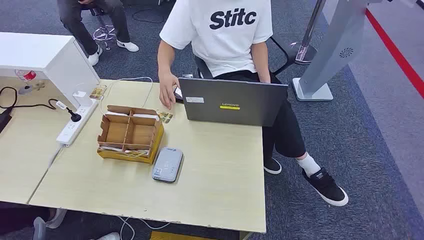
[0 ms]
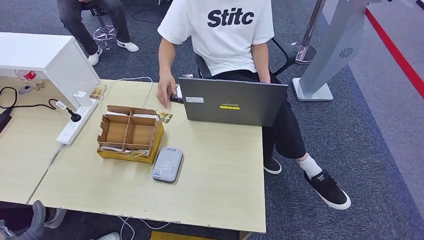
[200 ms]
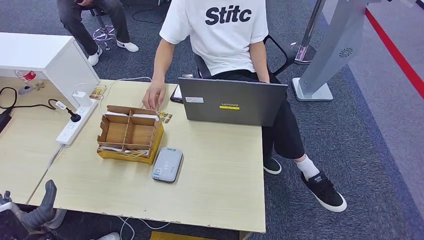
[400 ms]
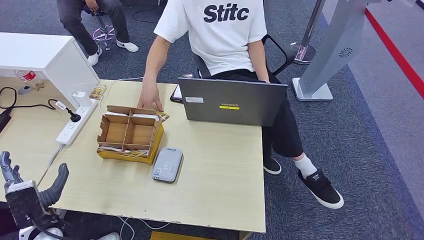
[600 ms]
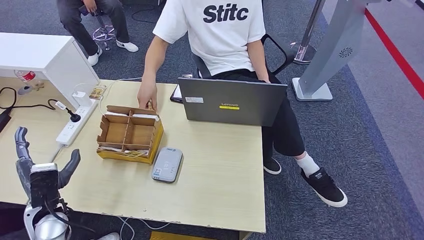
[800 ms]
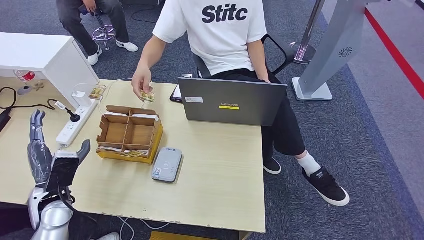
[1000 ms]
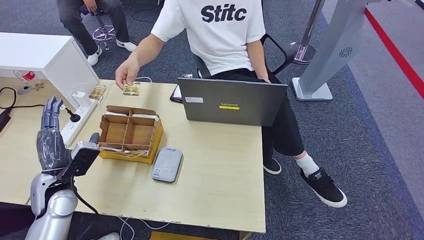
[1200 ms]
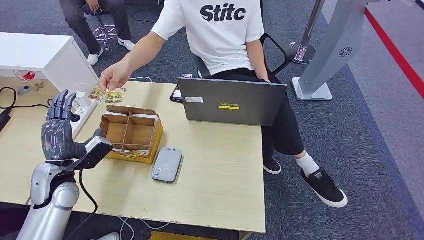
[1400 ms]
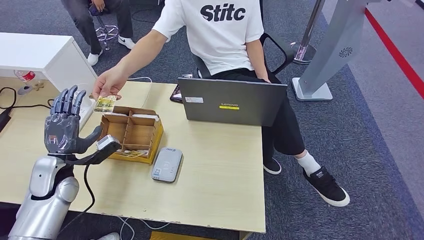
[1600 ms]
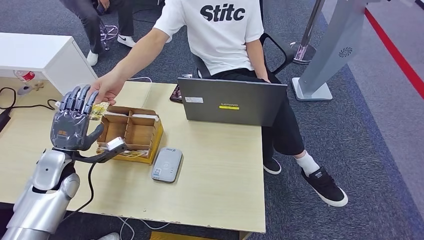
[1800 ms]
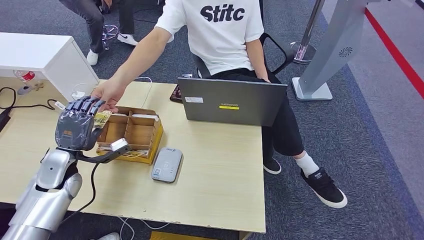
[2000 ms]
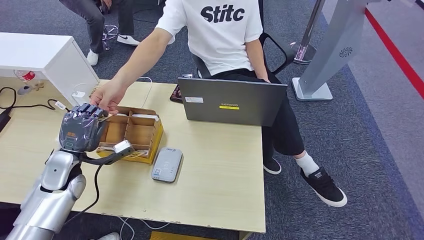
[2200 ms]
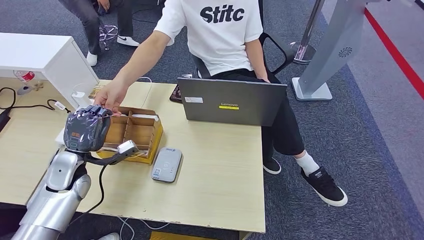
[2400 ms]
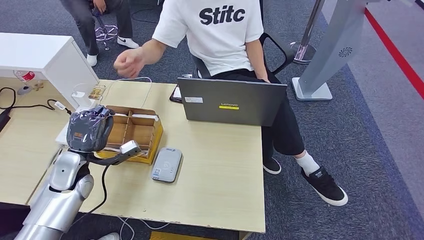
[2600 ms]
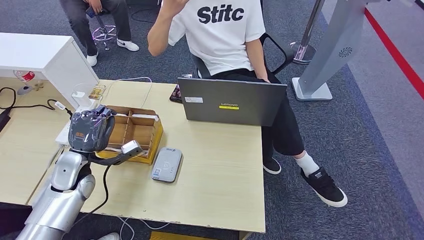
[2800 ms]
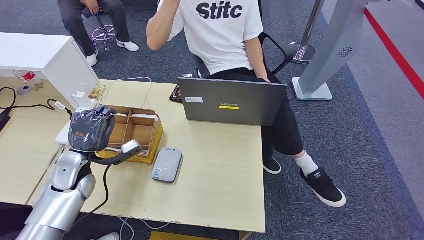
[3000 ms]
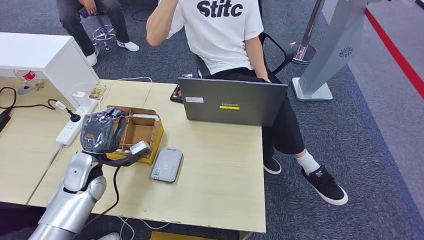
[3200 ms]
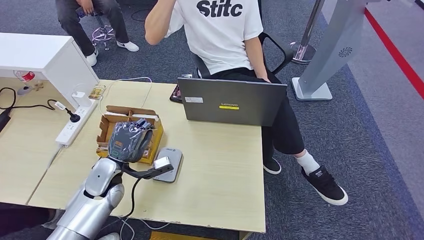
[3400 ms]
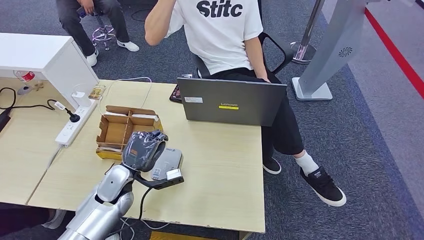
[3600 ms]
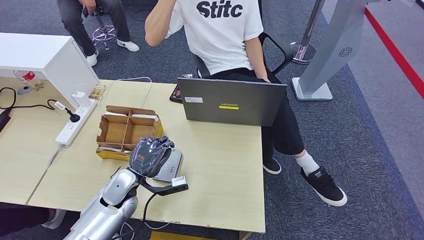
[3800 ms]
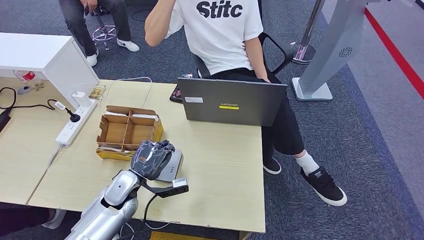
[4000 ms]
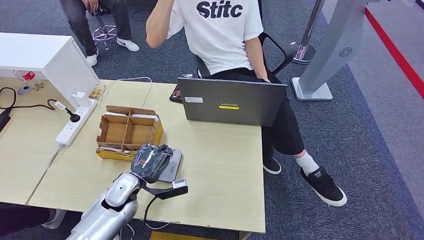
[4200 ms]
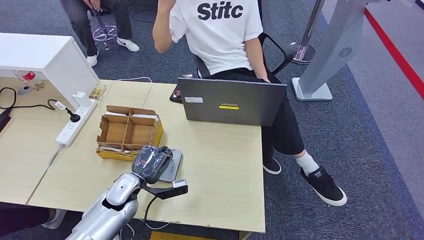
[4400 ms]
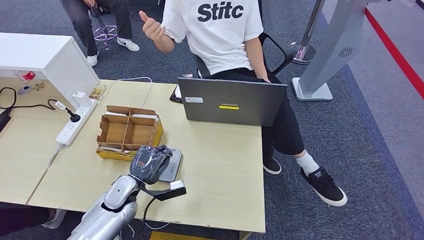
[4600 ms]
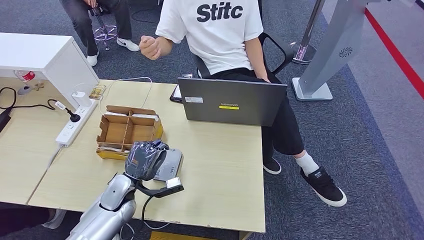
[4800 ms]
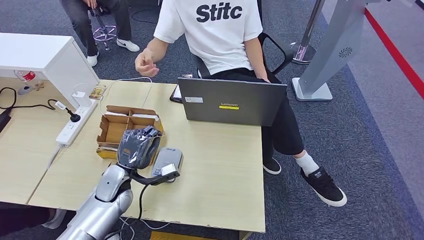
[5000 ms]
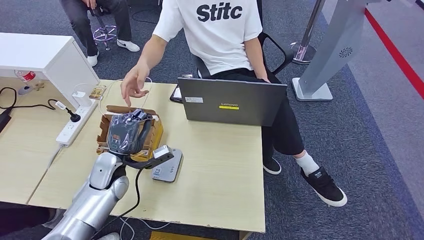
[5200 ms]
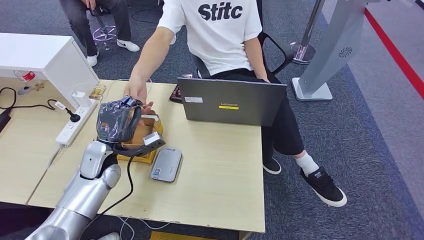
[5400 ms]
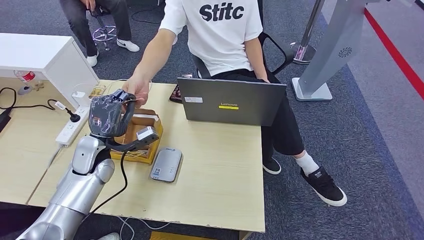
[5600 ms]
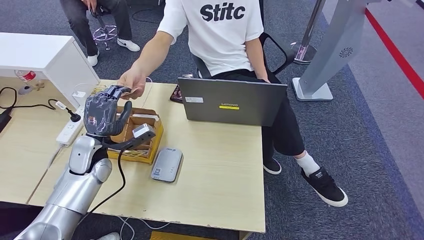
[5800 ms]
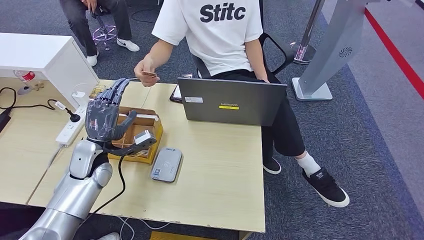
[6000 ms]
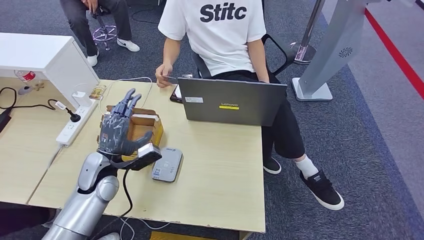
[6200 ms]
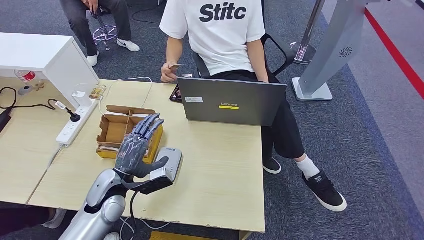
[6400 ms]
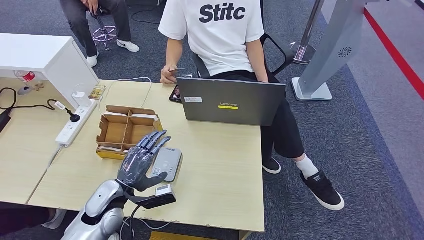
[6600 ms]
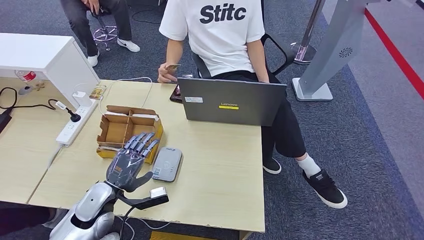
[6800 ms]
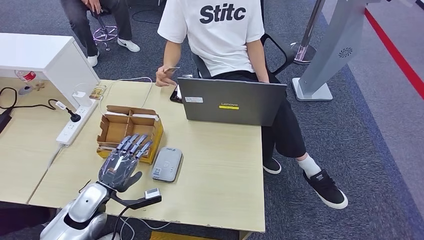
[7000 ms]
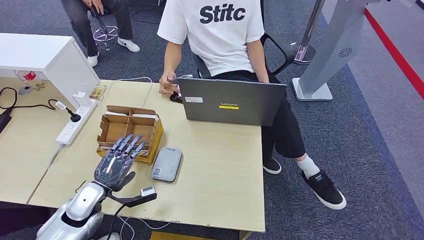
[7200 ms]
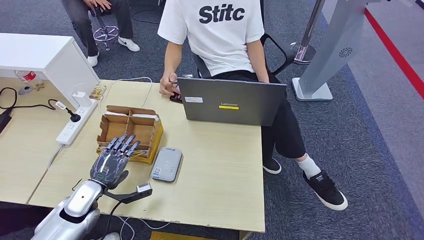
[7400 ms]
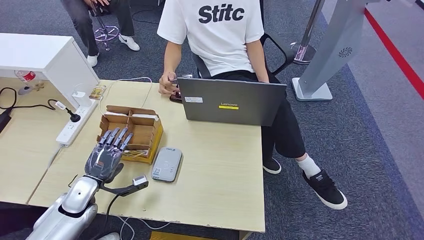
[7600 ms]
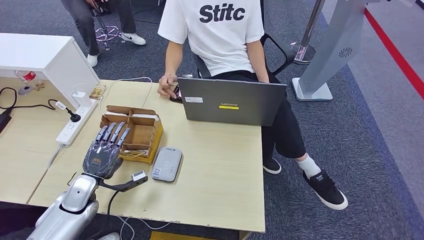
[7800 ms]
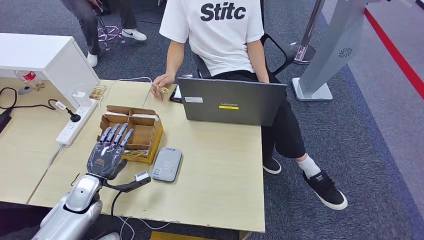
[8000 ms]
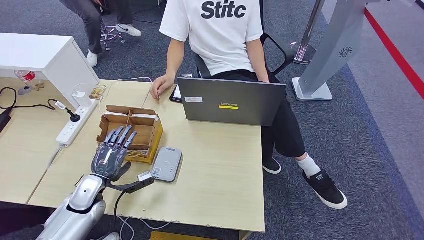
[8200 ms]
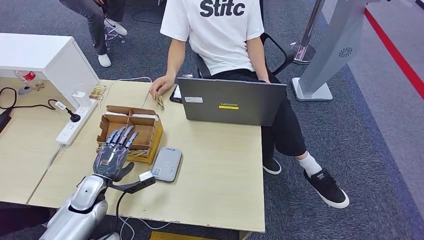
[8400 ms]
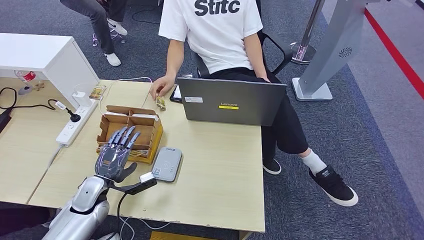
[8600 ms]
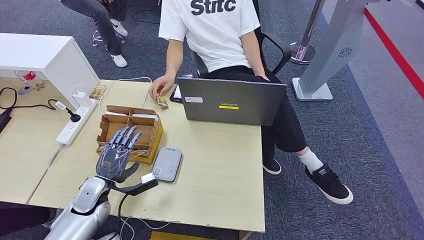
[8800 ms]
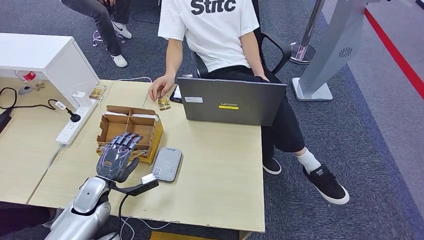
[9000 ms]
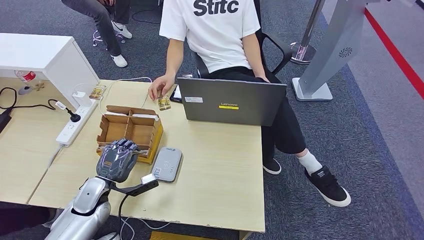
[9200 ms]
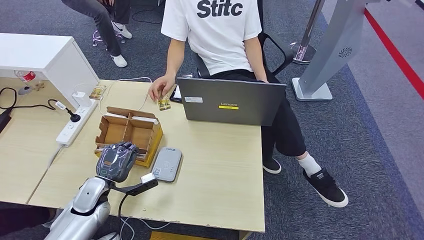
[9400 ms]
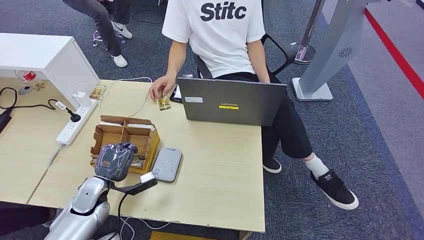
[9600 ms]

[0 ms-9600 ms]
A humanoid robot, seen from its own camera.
Step, 0 ms to 2800 ms: Take the ID card from the person's hand.
Step, 3200 ms to 4200 ms: Place the ID card on the card reader.
Step, 4400 ms to 6600 ms: Hand the ID card to the person.
1600 ms to 3200 ms: The left hand heads to the right, covering some 5 cm.
3200 ms to 4800 ms: The left hand moves to the right and downward, about 10 cm.
4800 ms to 6400 ms: The left hand heads upward, covering some 5 cm.
6400 ms to 8000 ms: The left hand goes about 10 cm to the left and downward.
8000 ms to 9600 ms: The hands make only small movements.

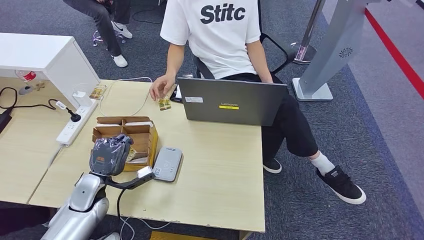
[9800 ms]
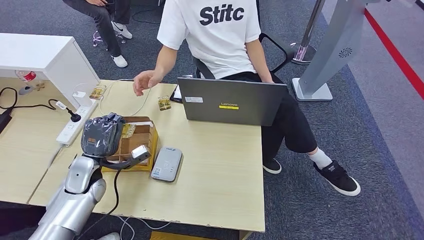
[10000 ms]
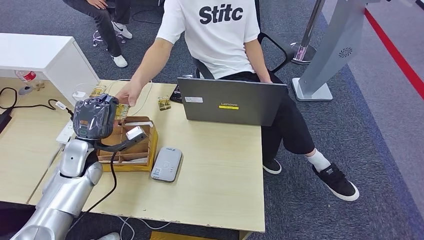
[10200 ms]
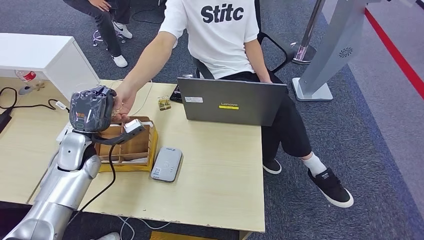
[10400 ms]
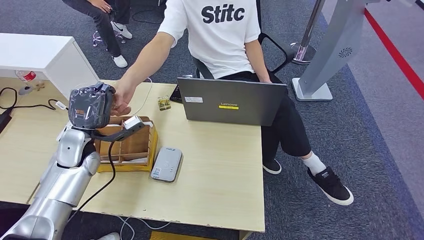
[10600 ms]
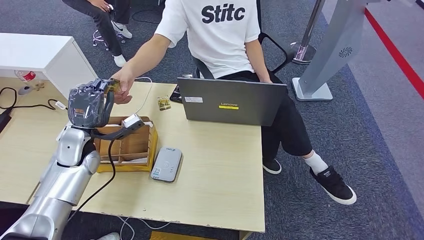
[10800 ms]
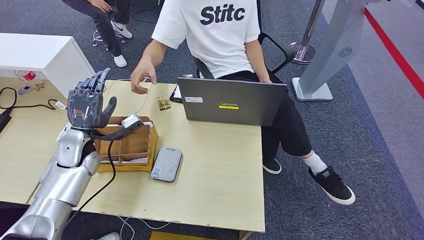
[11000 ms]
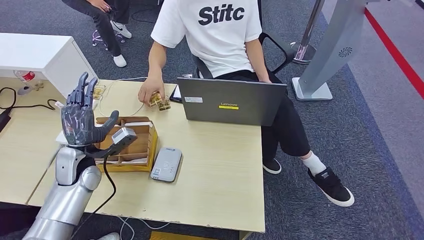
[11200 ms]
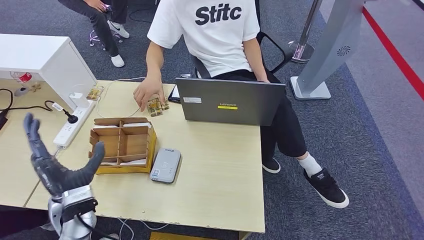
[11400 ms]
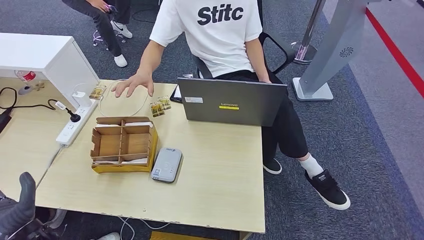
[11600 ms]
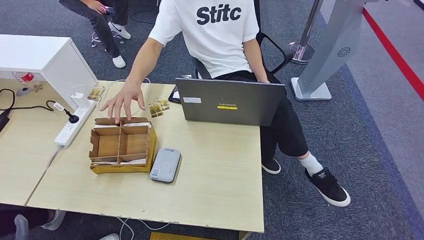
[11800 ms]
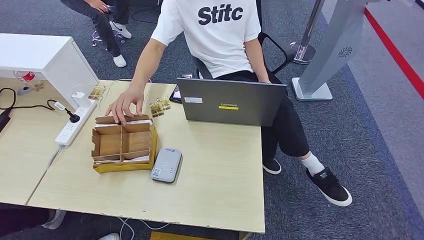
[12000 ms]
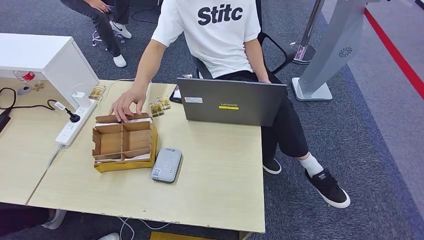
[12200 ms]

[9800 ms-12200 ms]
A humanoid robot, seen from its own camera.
Step, 10800 ms to 12200 ms: Hand the room key to the person.
9800 ms to 11000 ms: The left hand shifts roughly 15 cm upward and forward.
11000 ms to 12200 ms: The left hand moves backward and downward, about 40 cm.
